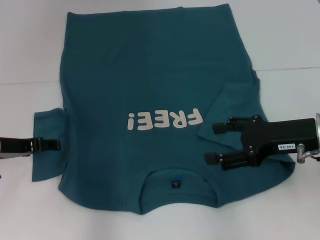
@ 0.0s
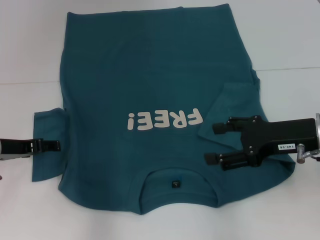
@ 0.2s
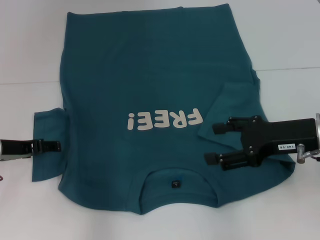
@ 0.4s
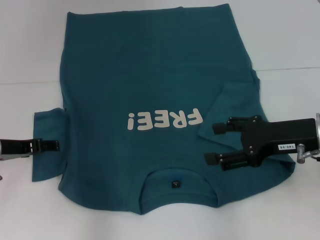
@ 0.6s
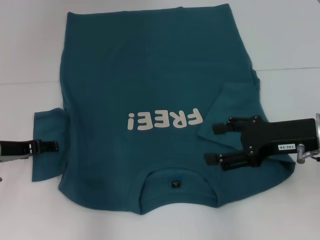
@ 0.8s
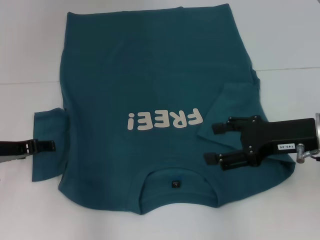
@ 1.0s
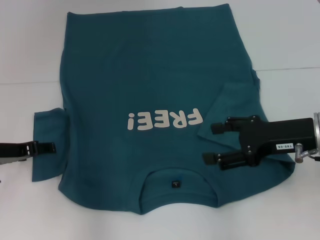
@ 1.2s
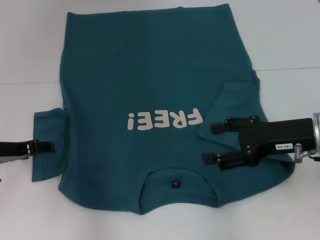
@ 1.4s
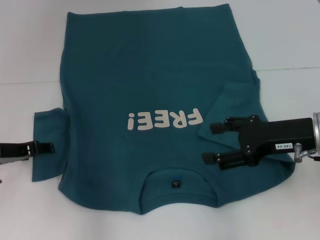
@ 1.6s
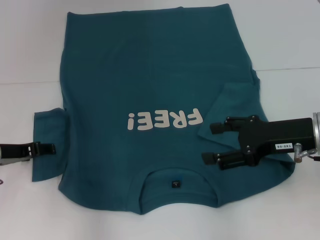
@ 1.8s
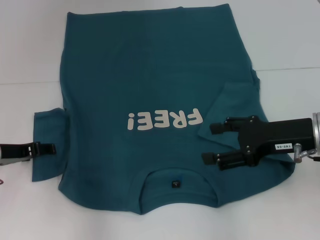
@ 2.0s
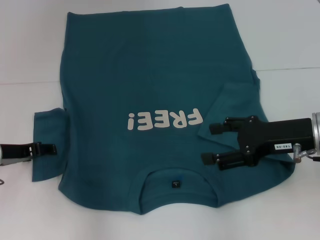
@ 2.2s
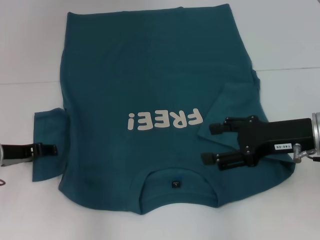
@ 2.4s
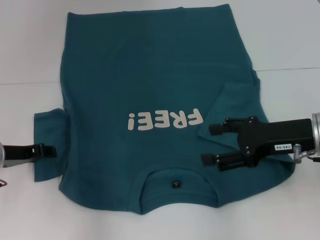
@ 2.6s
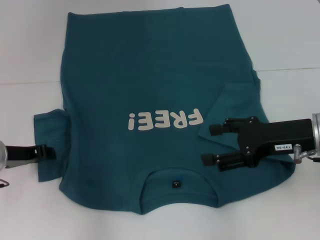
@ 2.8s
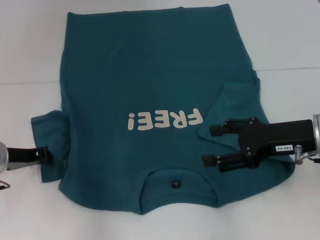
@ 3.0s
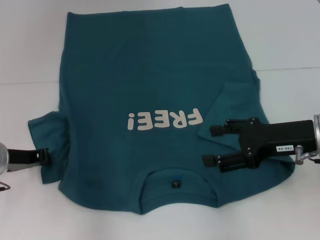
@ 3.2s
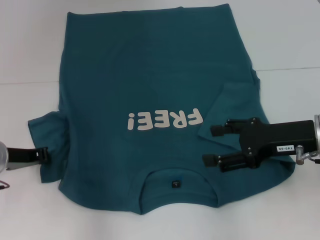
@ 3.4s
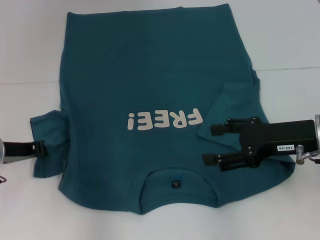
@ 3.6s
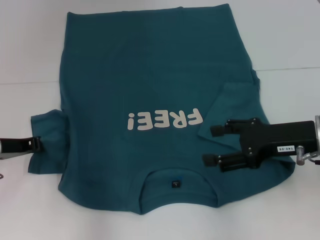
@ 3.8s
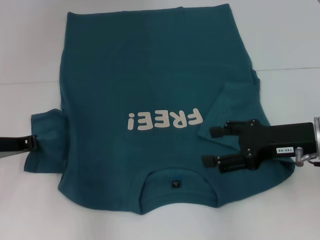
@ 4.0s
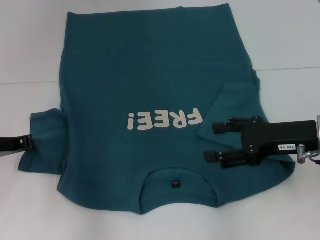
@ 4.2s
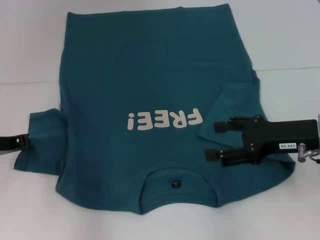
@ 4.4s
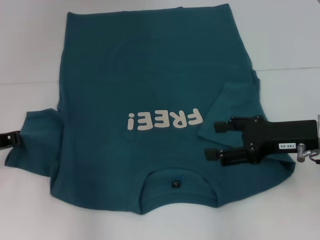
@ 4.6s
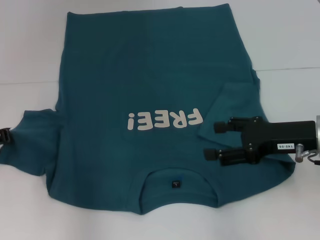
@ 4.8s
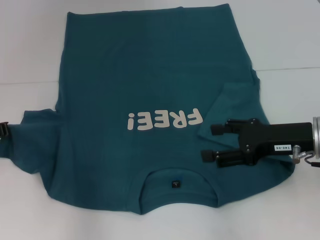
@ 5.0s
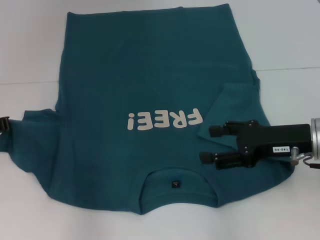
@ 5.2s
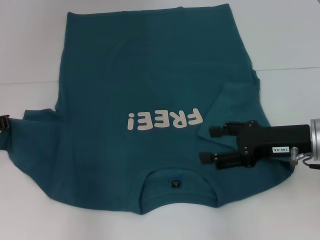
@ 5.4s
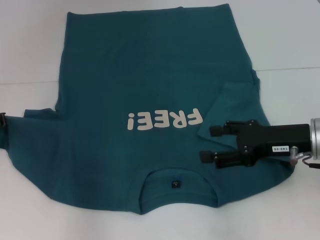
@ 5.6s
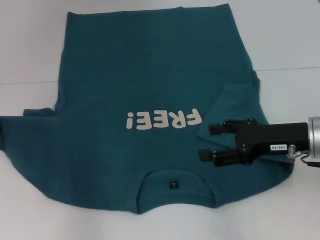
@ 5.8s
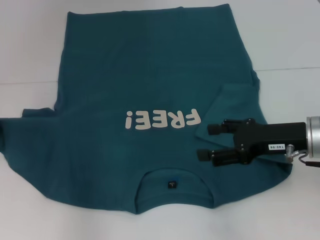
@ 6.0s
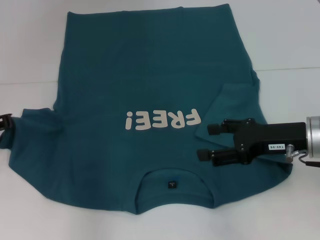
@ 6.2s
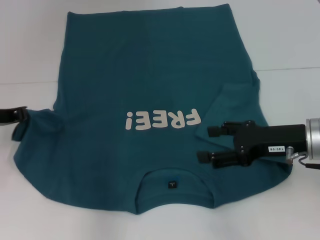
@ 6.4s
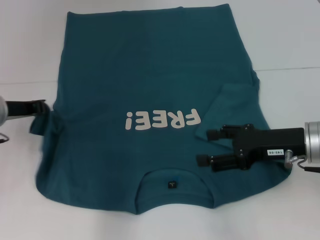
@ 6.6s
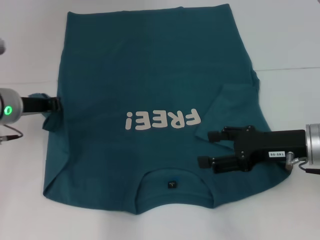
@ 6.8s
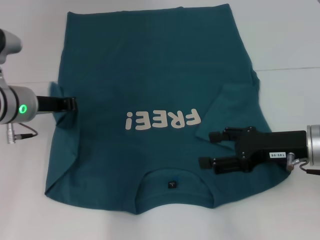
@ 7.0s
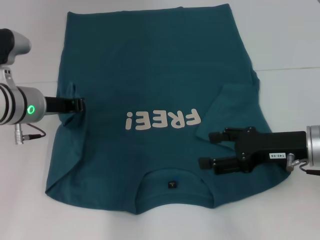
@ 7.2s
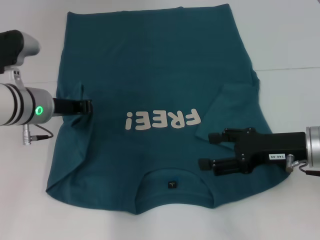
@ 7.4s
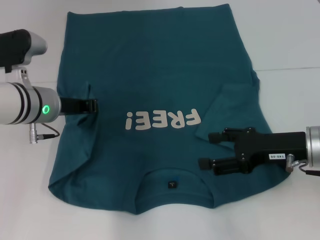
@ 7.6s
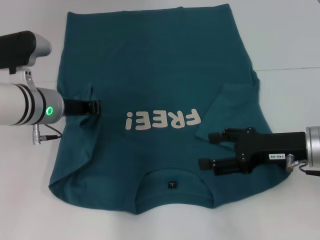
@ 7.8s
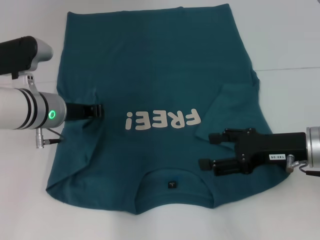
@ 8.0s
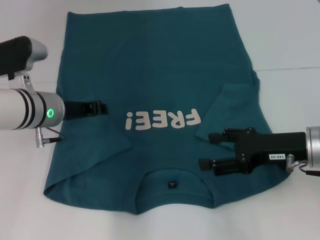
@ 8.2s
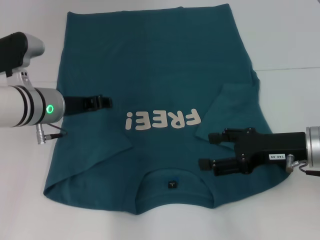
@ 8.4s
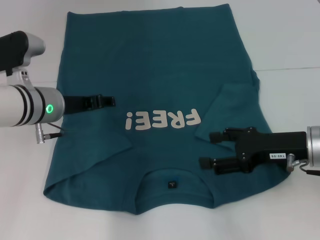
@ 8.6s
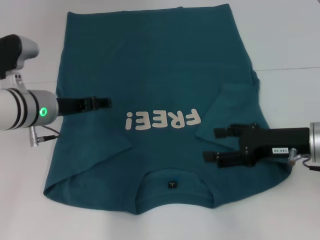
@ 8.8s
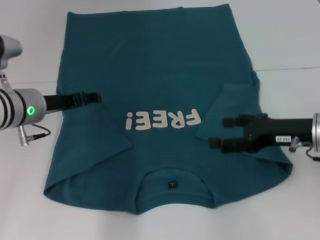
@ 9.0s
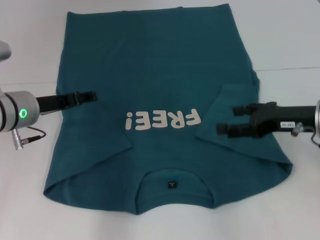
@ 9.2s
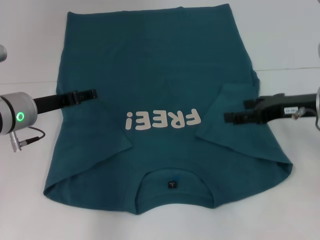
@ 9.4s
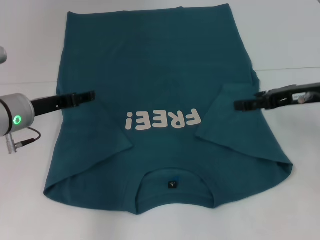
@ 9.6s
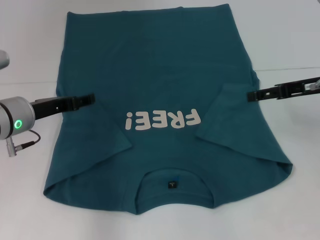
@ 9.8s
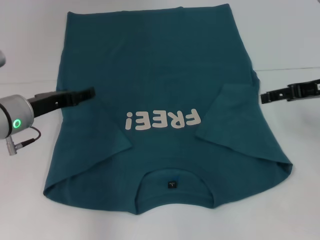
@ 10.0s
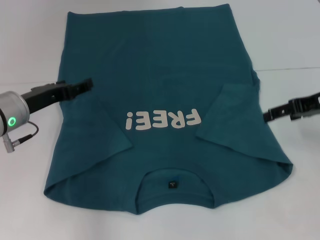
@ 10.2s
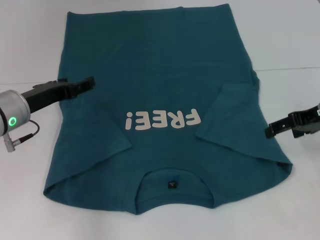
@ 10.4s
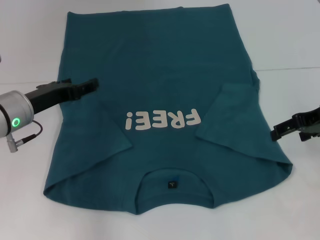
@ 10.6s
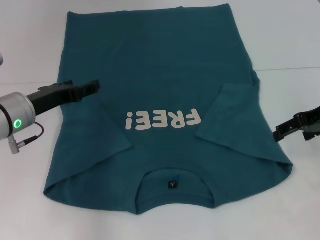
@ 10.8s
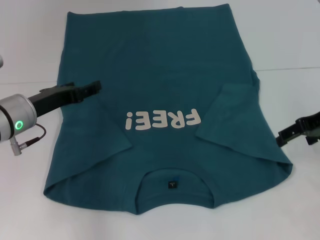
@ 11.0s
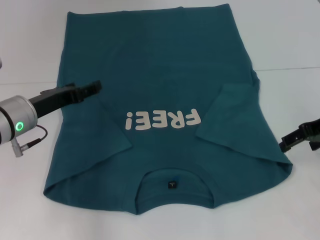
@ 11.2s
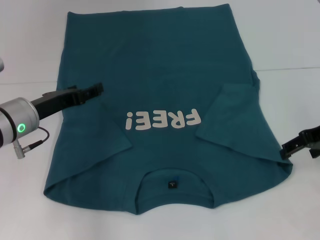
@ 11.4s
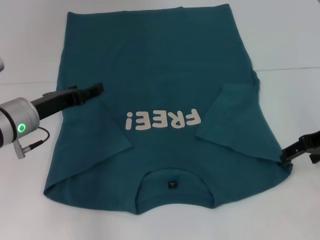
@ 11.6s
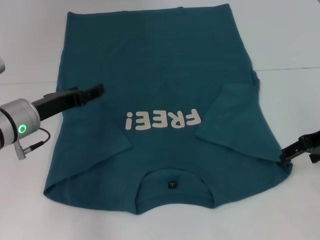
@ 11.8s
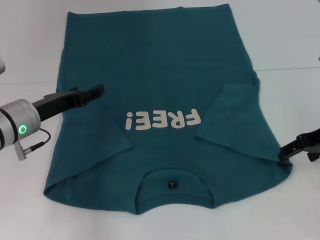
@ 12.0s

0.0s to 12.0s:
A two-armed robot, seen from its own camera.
Step, 0.0s to 8.2s: Fold the bottom left sleeve with your left hand.
0.0s to 1.6s: The grippers stay close to where they were, moving slightly.
1.6s to 3.0s: The left gripper closes its fingers.
3.0s to 4.4s: The left gripper closes its fingers.
4.4s to 6.0s: There are only small adjustments of the grippers.
6.0s to 7.6s: The left gripper heads to the right, covering approximately 15 cm.
7.6s to 9.0s: The left gripper opens.
9.0s to 10.4s: The right gripper goes approximately 5 cm upward.
10.4s to 12.0s: The grippers make only small movements.

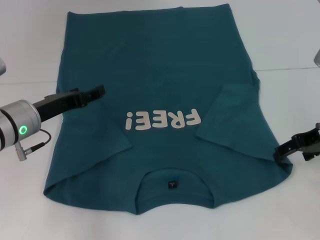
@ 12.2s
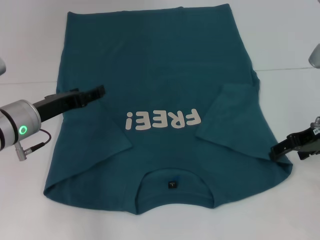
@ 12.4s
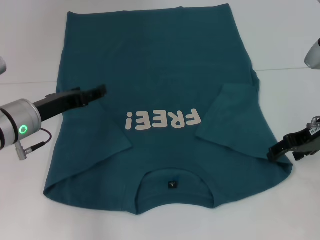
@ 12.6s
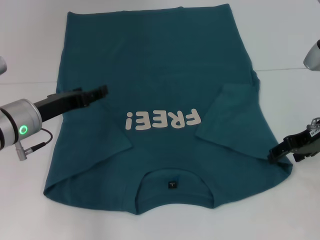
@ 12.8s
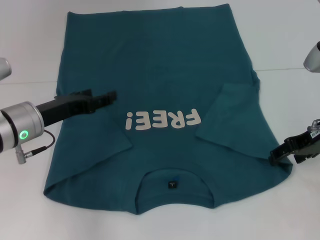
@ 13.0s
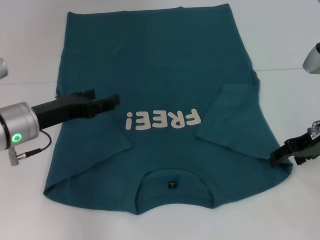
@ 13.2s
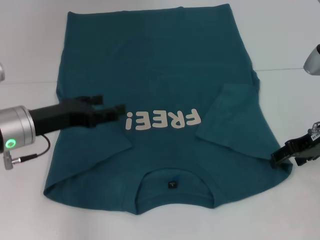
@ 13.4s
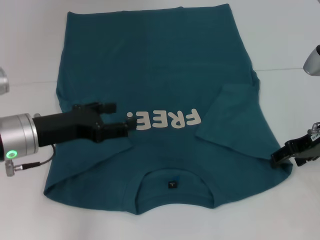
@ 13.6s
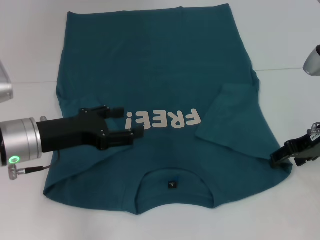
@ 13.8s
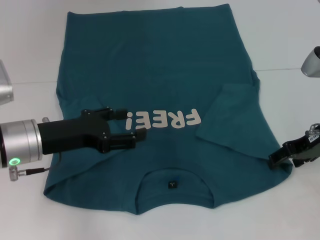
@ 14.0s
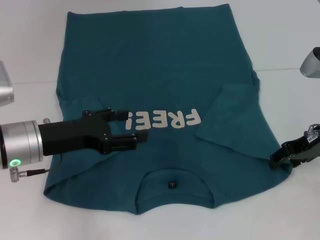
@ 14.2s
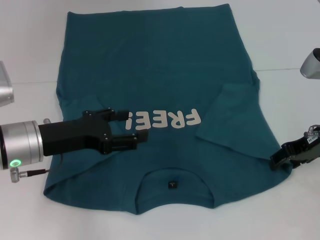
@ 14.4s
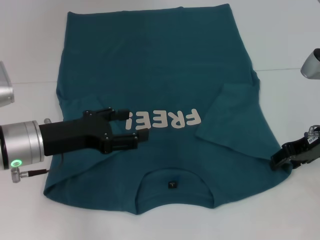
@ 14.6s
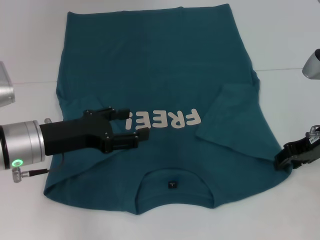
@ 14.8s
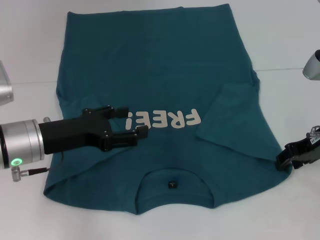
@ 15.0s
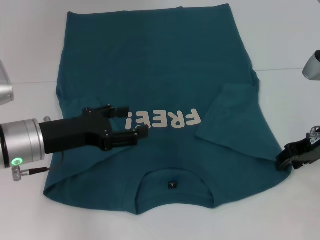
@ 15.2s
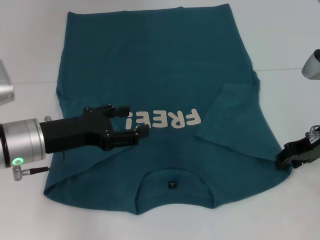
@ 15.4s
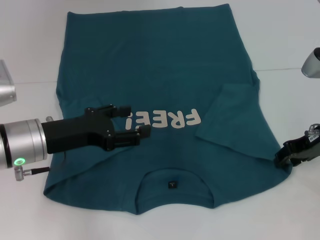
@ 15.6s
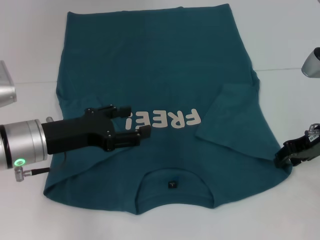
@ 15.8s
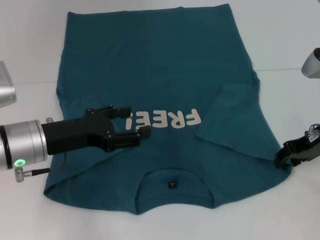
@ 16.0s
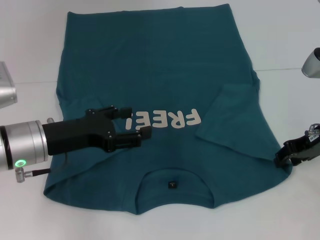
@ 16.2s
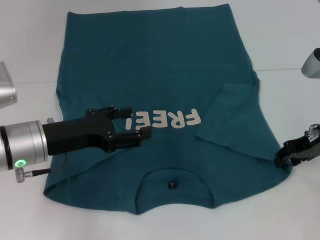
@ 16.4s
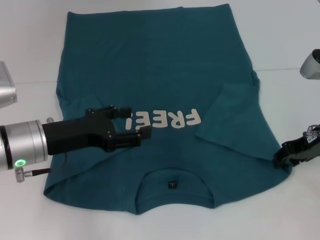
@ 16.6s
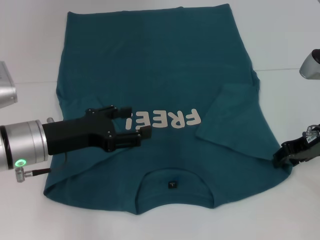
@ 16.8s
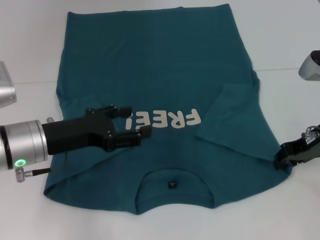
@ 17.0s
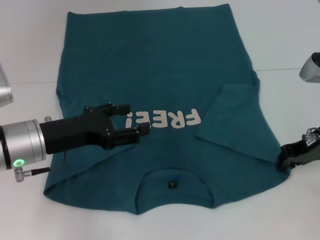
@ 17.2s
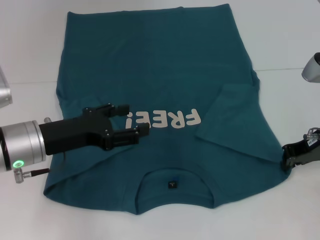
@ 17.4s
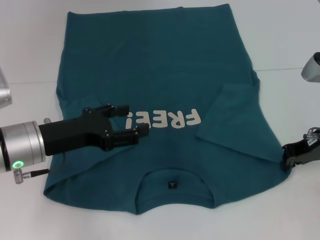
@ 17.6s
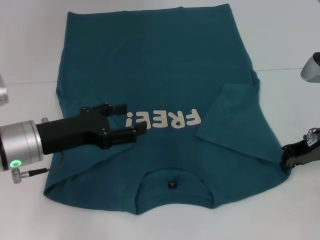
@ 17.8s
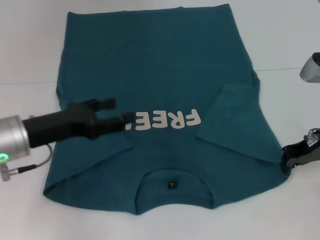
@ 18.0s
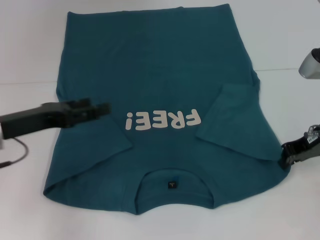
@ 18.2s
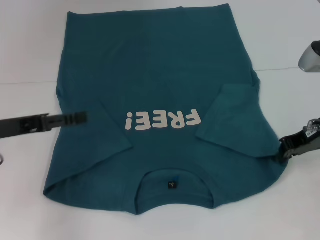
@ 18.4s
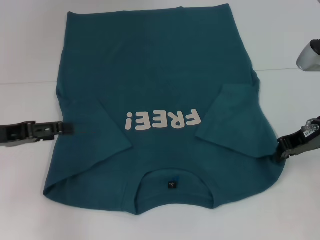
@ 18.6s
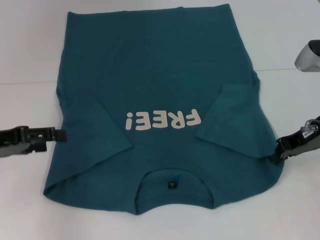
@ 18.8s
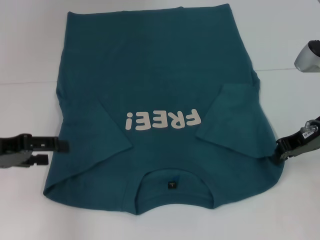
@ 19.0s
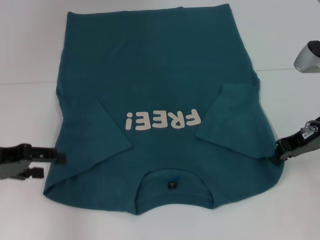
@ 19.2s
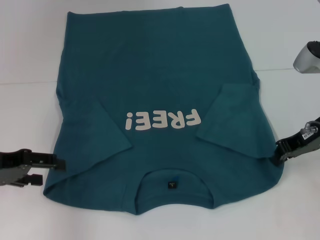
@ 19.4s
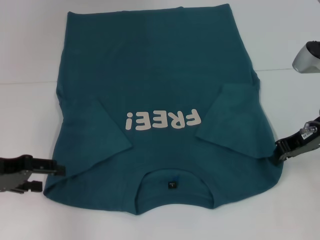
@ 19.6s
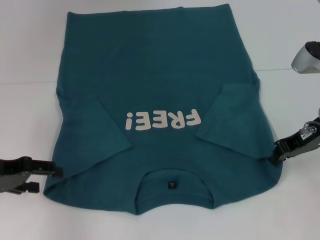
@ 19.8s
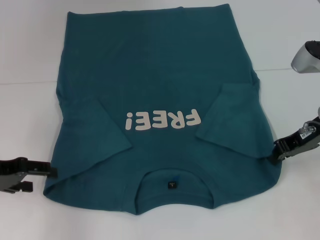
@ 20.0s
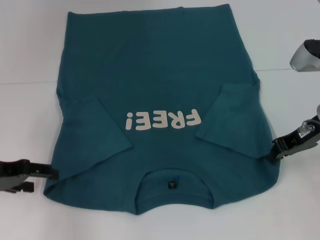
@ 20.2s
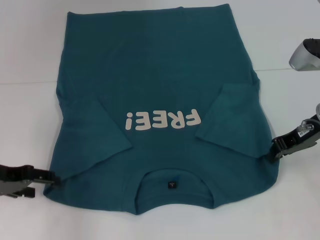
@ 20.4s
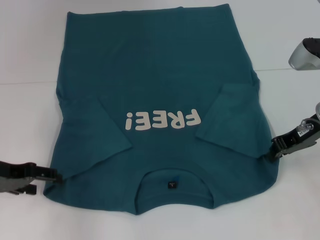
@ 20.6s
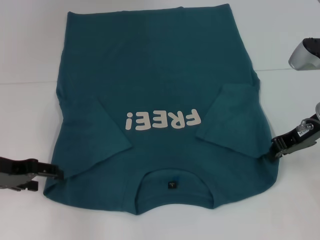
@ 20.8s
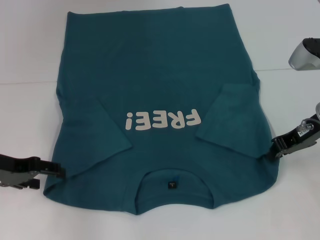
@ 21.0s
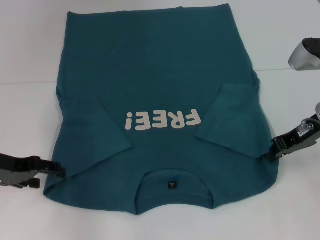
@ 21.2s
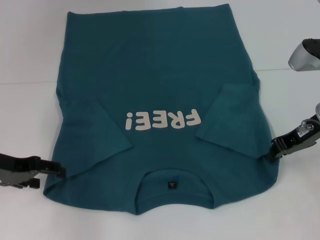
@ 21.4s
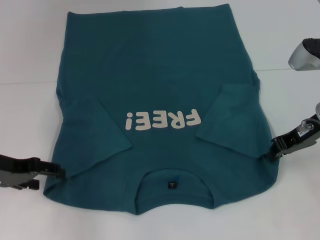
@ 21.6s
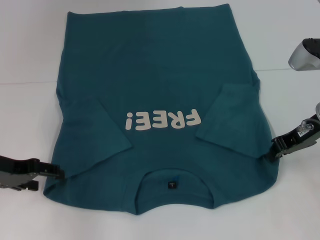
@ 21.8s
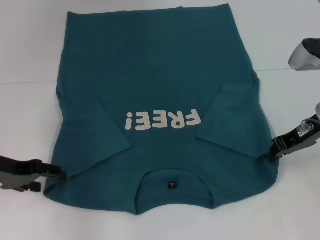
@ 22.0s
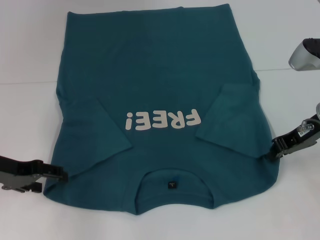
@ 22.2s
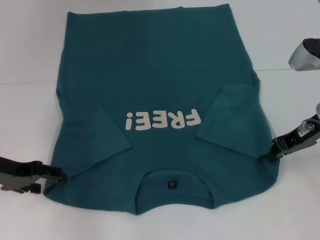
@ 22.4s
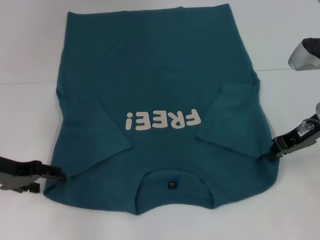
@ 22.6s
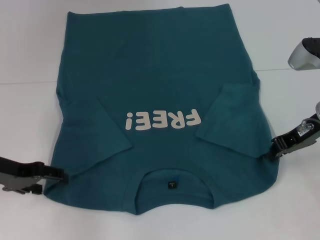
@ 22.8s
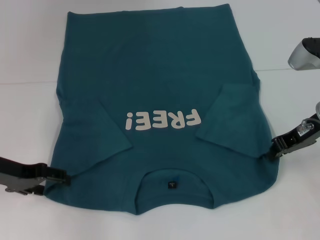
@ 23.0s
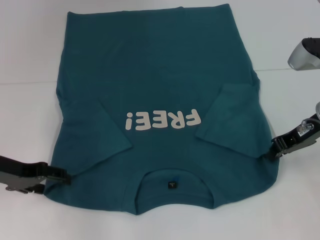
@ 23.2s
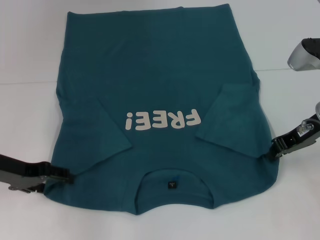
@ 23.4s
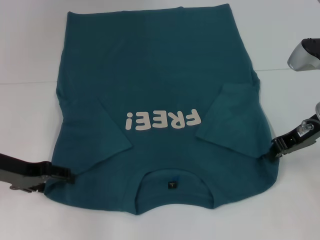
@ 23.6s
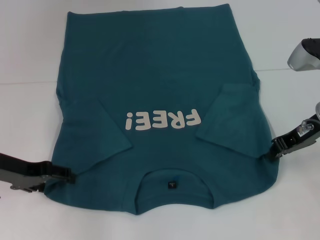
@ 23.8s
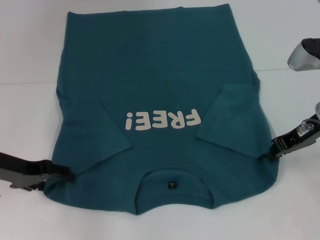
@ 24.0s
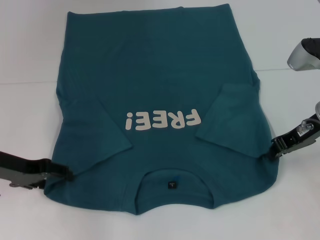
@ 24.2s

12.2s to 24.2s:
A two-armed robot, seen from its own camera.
Step, 12.2s to 18.4s: Grab the bottom right corner with your right hand.
13.8s to 16.6s: Both grippers stay put.
16.6s to 18.2s: The right gripper closes its fingers; the left gripper goes roughly 5 cm to the left.
18.2s to 19.8s: The left gripper travels to the left by about 5 cm.
19.8s to 21.2s: The grippers stay close to where they were, moving slightly.
21.2s to 22.6s: Both grippers stay put.
22.6s to 24.2s: The grippers move only a little.
